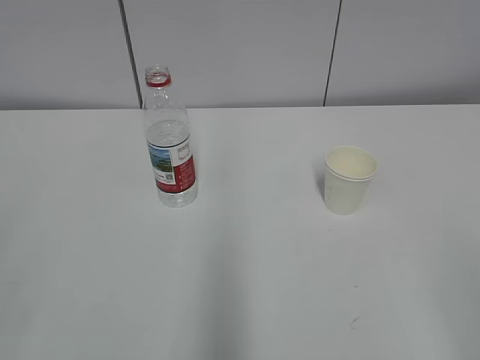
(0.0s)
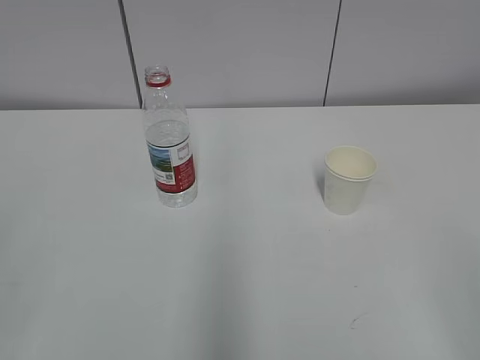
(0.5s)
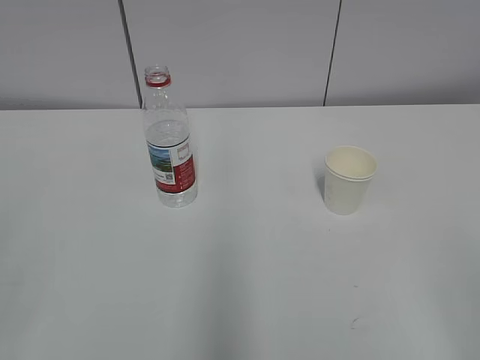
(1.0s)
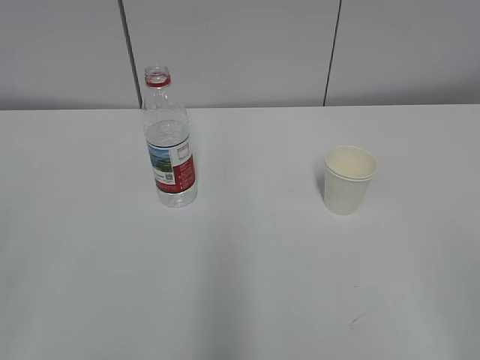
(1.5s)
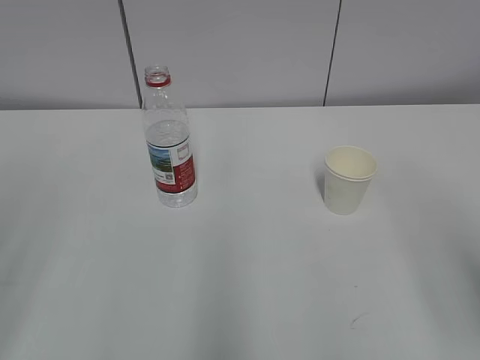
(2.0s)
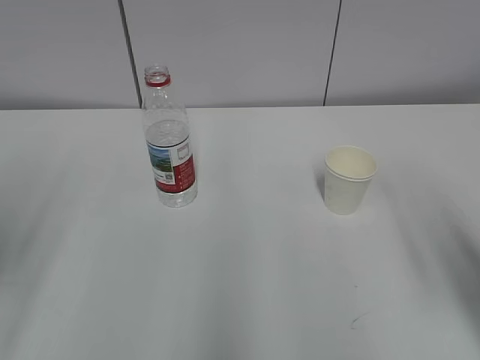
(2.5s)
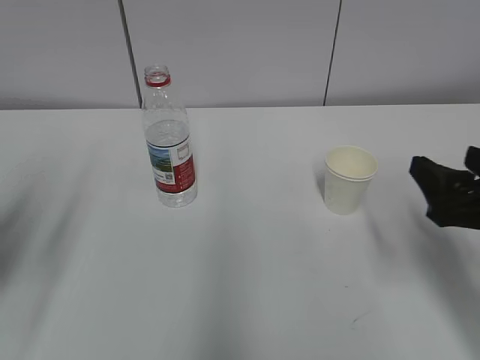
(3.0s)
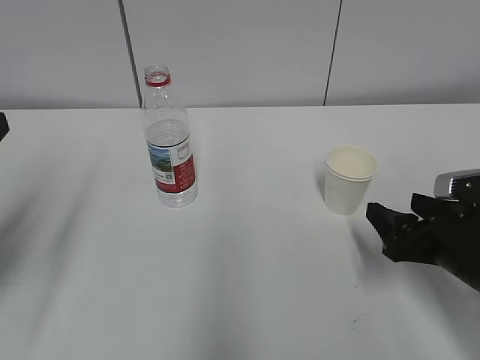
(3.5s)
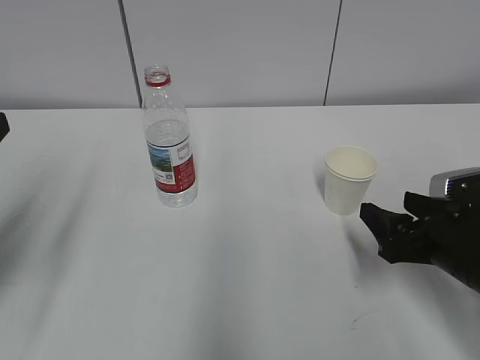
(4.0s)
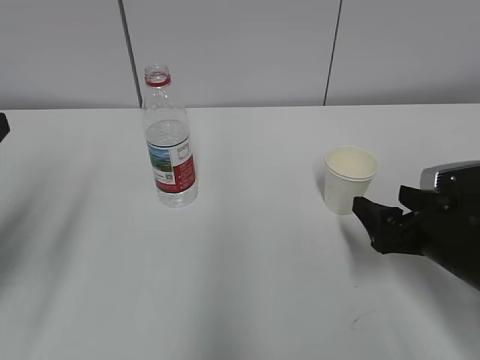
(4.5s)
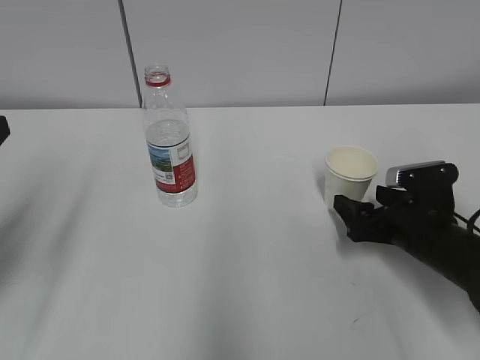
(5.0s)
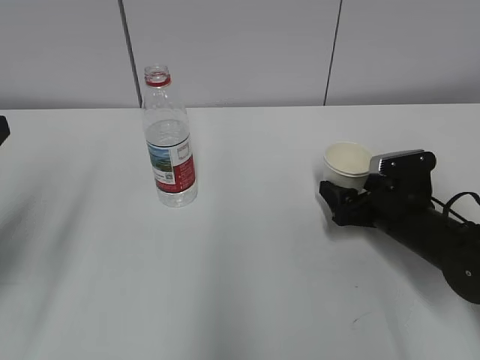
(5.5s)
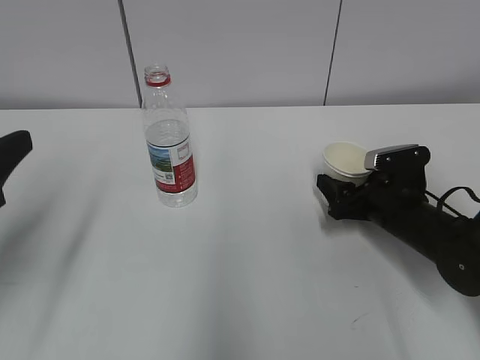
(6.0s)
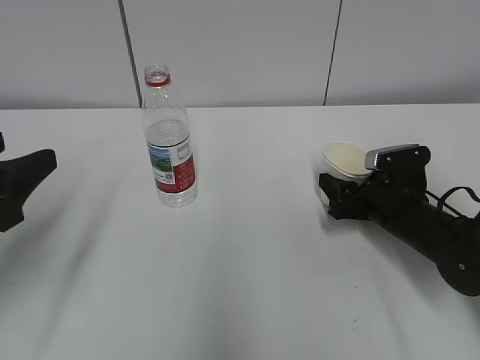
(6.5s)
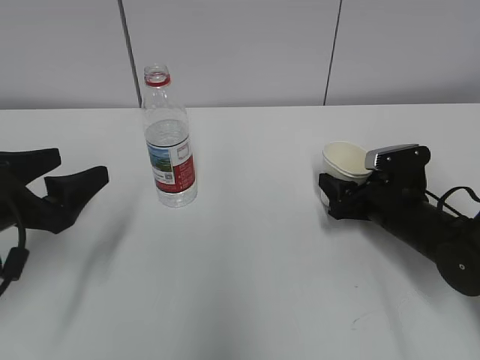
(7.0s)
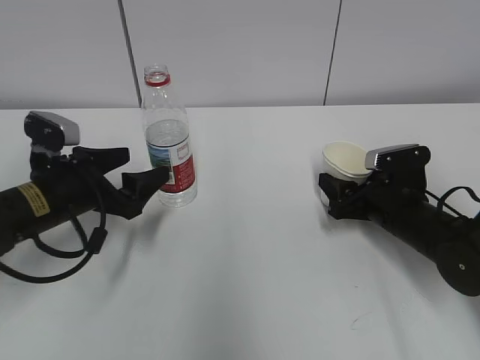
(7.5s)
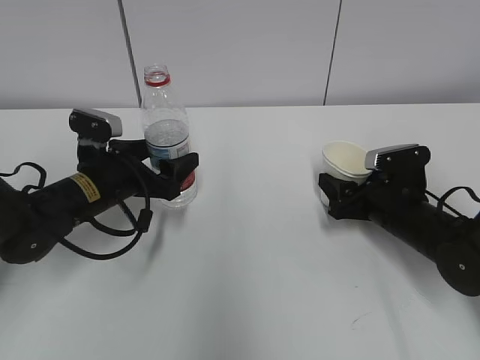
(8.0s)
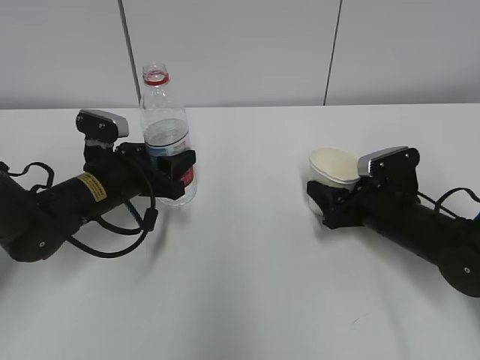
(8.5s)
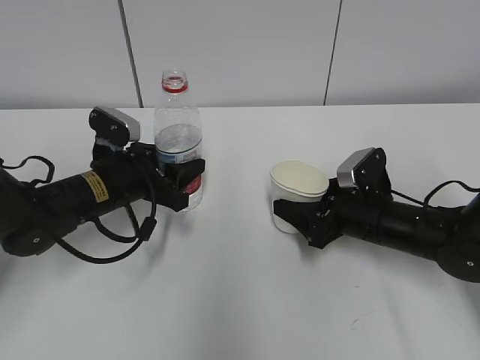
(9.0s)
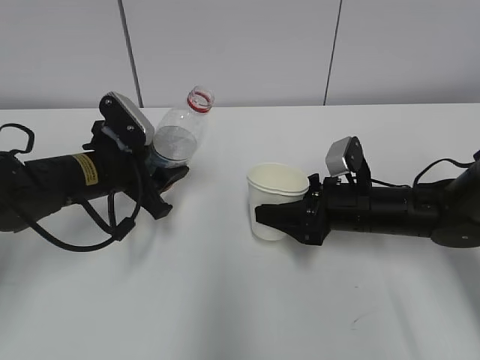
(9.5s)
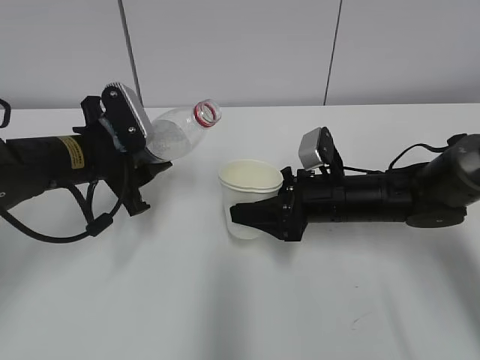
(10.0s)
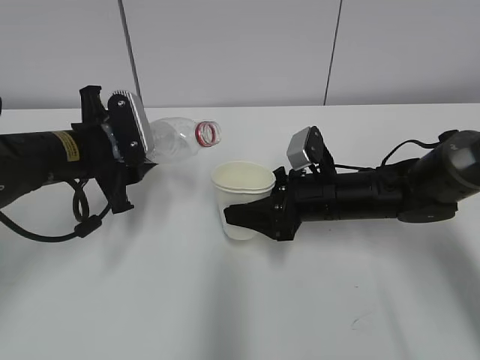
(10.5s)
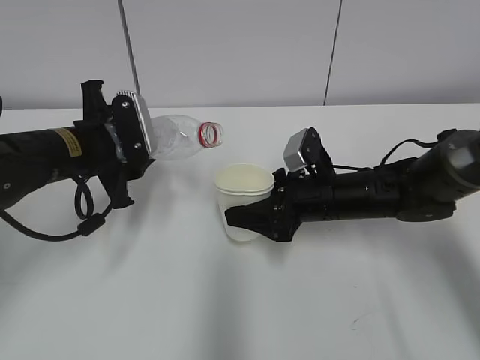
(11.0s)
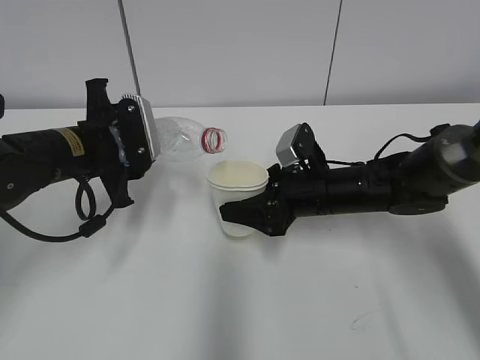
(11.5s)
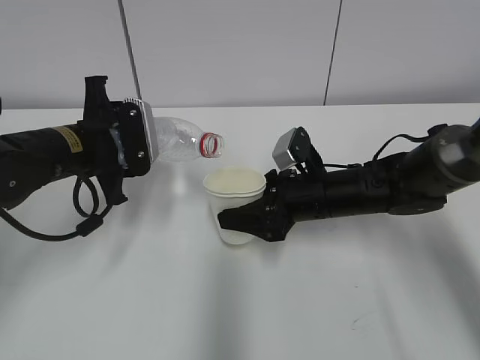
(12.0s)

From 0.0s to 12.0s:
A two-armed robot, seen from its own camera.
Step, from 0.0s to 6.5s: Grab the paper cup with the right hand.
Step, from 7.5s to 10.5s: Lift the paper cup with the right hand.
From 2.0s to 4.0s: The right gripper travels downward and forward by about 25 cm; the left gripper shifts some 15 cm forward and downward.
From 4.0s to 6.0s: The right gripper shifts about 10 cm forward and downward, and opens and closes again.
From 6.0s to 8.0s: The left gripper shifts about 25 cm forward, downward and to the right, and opens. Meanwhile the right gripper closes up.
From 8.0s to 10.0s: The left gripper is displaced upward by about 5 cm, and closes up, while the right gripper moves to the left, roughly 10 cm.

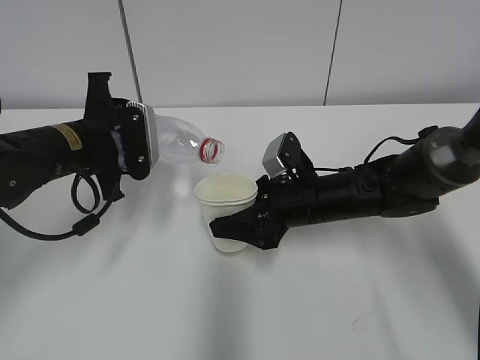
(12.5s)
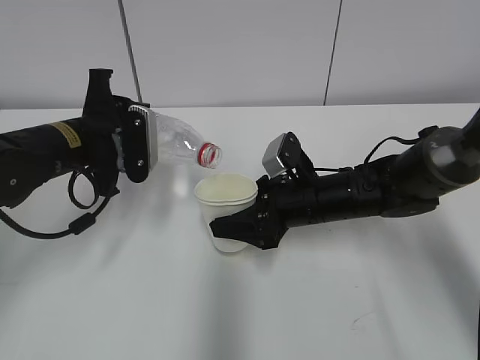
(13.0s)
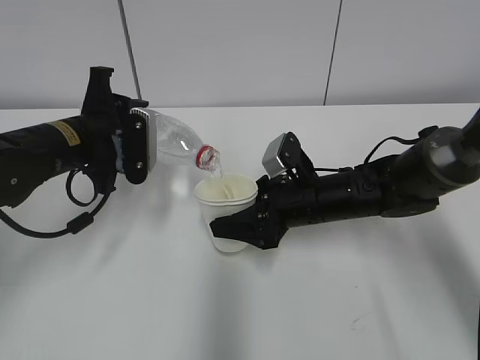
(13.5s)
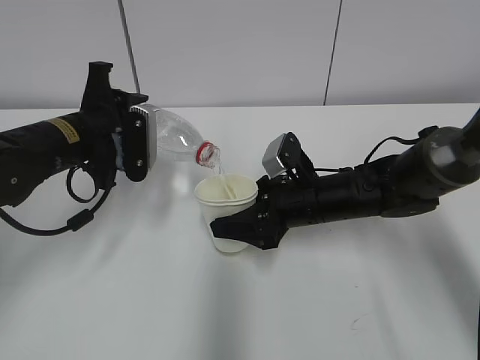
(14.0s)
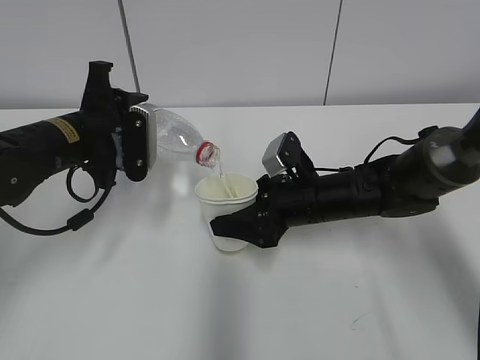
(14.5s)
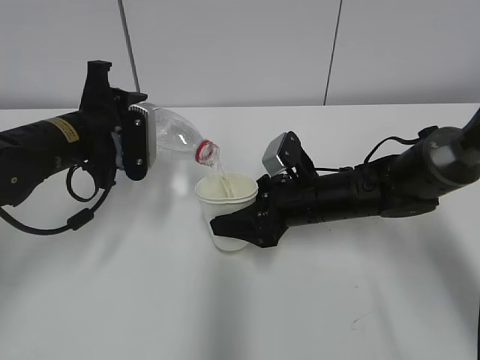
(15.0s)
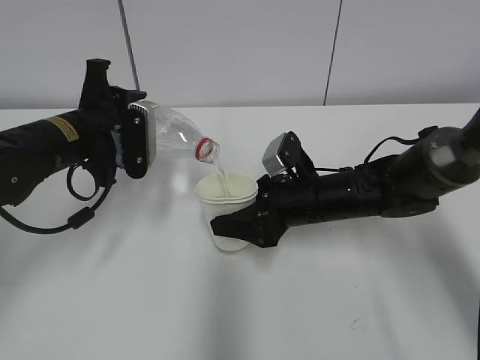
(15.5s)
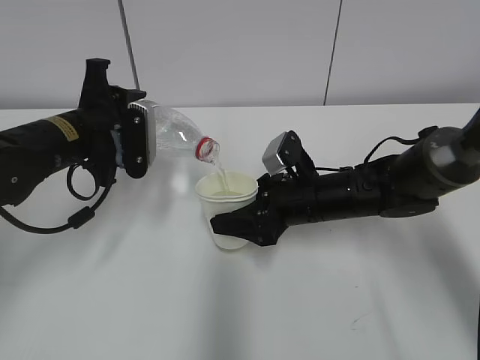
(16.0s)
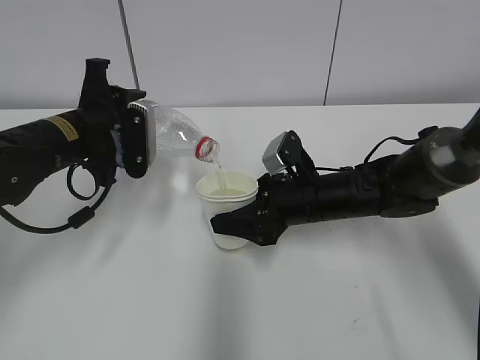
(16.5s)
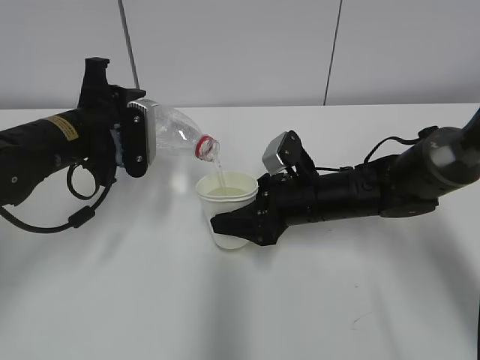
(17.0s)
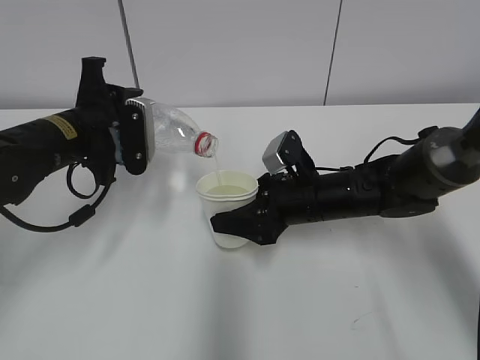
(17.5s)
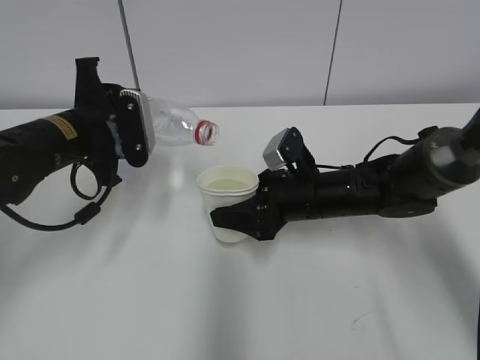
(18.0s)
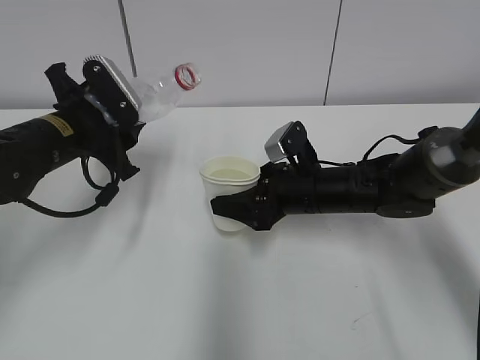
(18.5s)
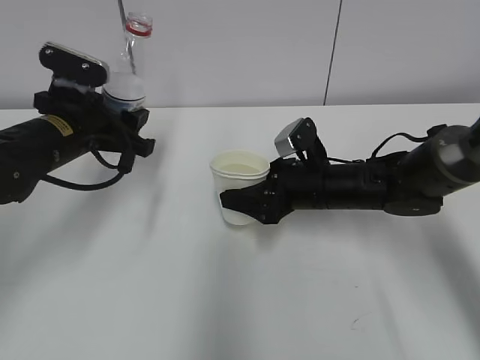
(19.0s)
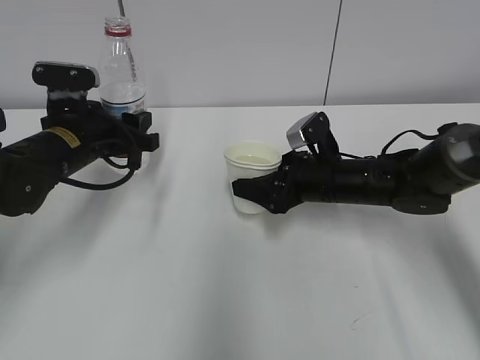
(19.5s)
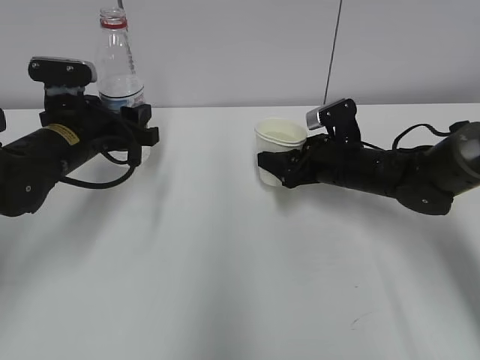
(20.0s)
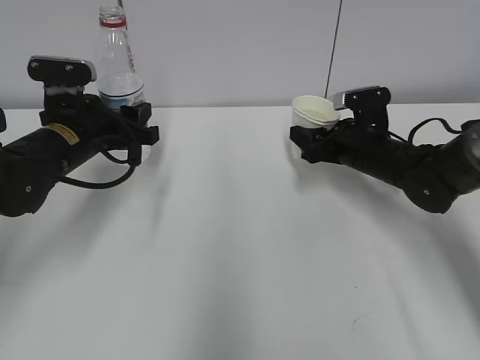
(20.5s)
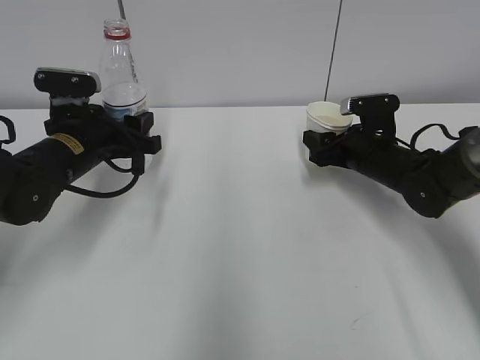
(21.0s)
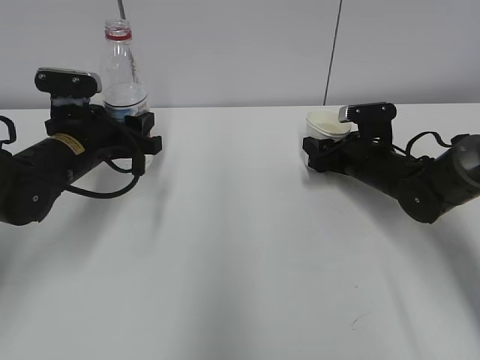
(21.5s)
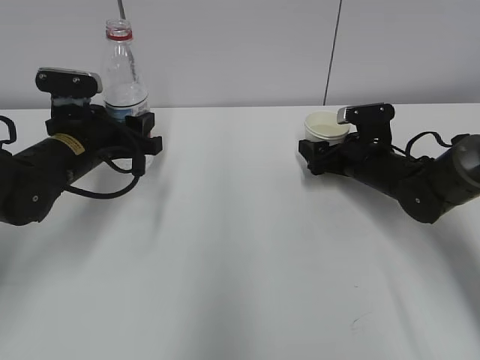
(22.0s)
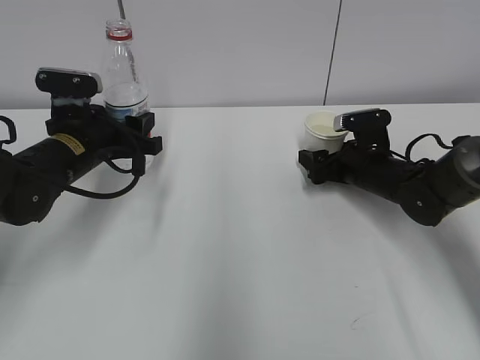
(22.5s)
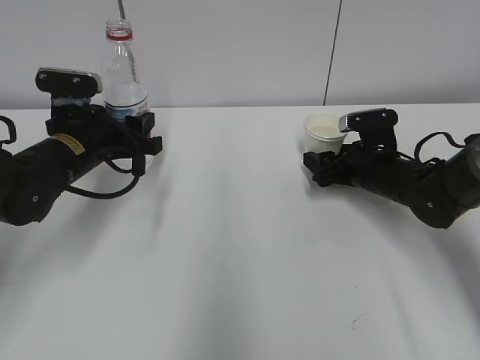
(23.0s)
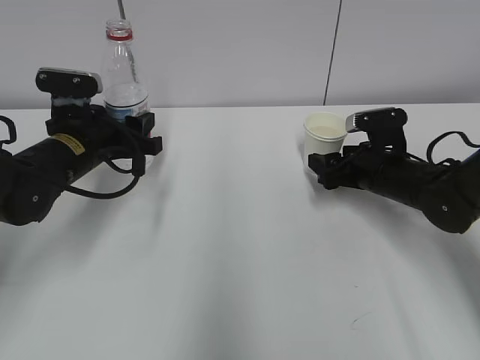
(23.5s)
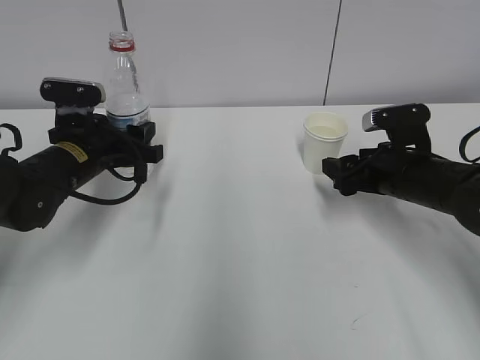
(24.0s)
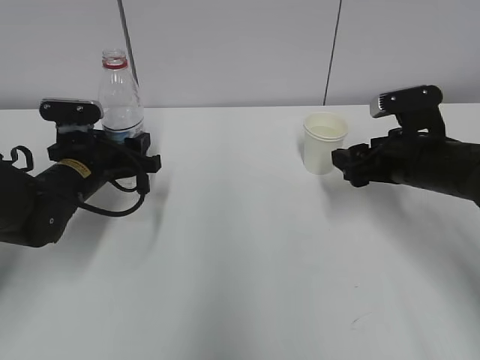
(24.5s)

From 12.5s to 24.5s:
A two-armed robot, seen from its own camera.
Step, from 12.5s to 14.5s: Pour water with the left hand.
Step, from 15.0s to 16.0s: Collect water with the left hand.
Step, from 16.5s to 18.0s: Place the paper cup with the right hand.
Step, from 18.5s to 20.5s: Place the water bottle with the left hand.
From 12.5s to 14.5s: There are only small adjustments of the grippers.
From 14.5s to 16.5s: Both grippers stay about where they are.
From 18.5s to 20.5s: The right gripper moves to the right and forward, some 10 cm.
From 20.5s to 22.5s: The right gripper opens.
From 22.5s to 24.5s: The right gripper is displaced backward and upward by about 10 cm, and closes.

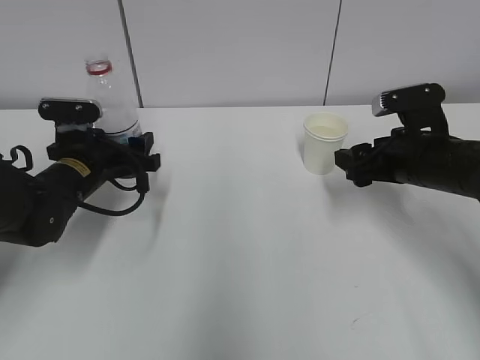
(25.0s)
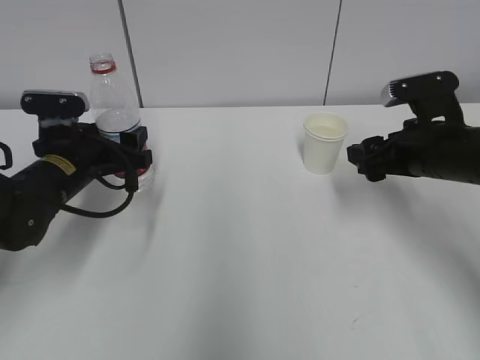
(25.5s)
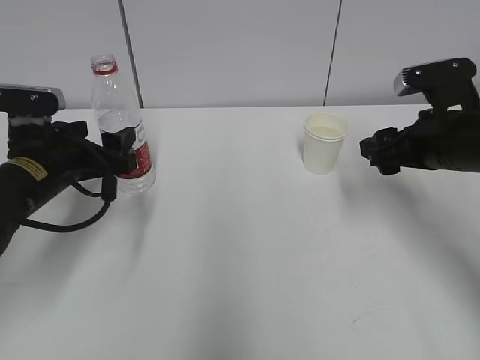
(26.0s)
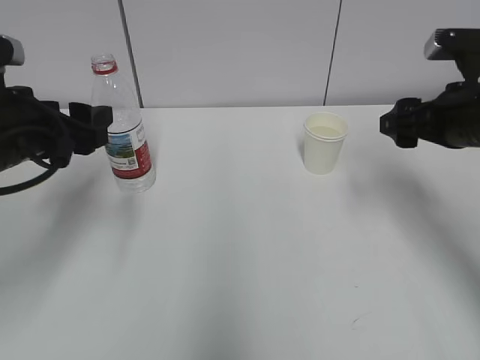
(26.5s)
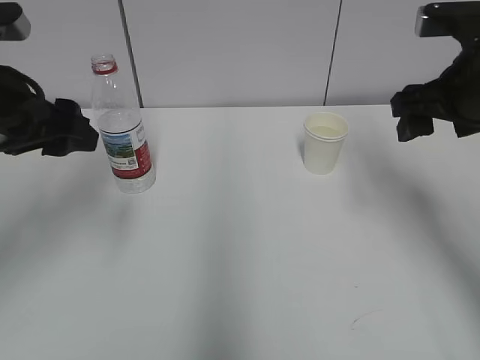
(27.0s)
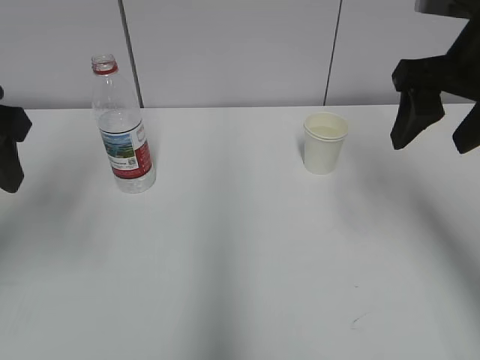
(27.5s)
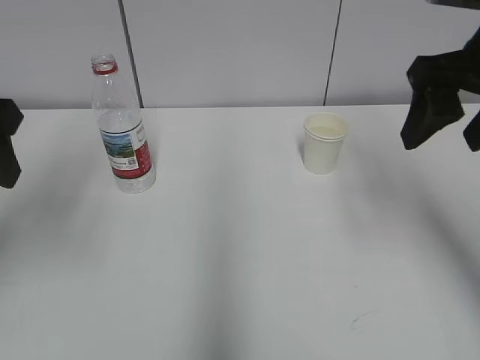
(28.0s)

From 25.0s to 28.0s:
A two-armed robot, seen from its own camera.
From 25.0s to 26.5s: The left gripper moves upward and backward, some 15 cm; the right gripper goes approximately 10 cm upward.
From 26.5s to 28.0s: The two grippers go about 10 cm upward.
